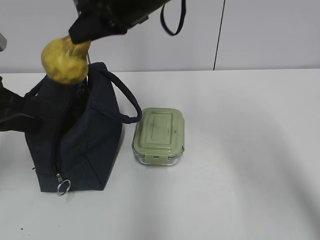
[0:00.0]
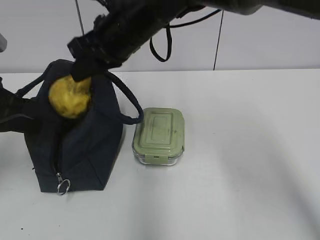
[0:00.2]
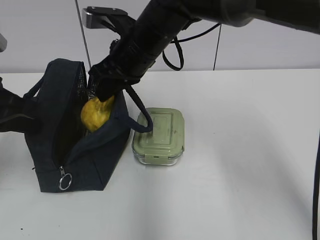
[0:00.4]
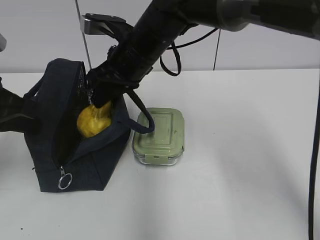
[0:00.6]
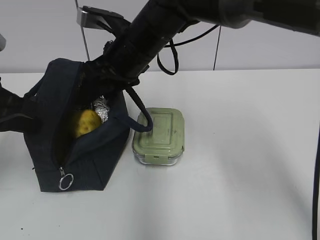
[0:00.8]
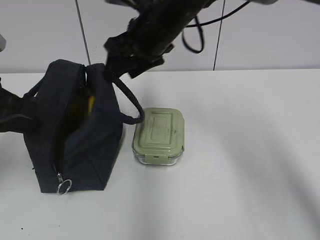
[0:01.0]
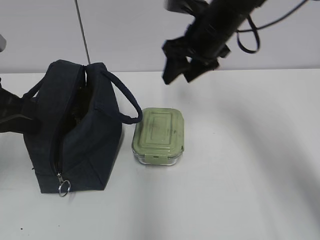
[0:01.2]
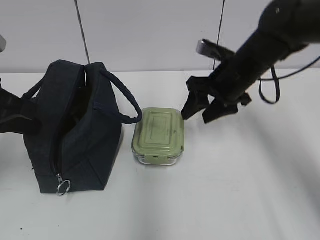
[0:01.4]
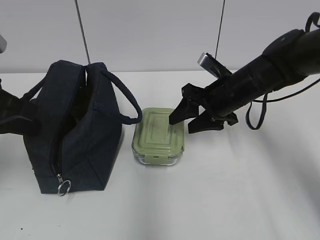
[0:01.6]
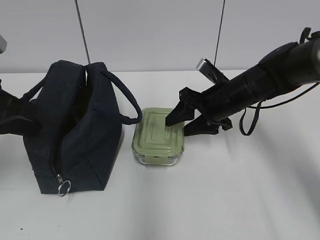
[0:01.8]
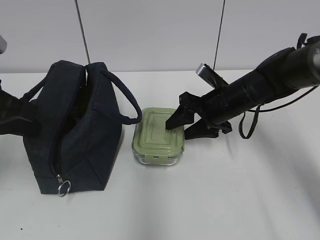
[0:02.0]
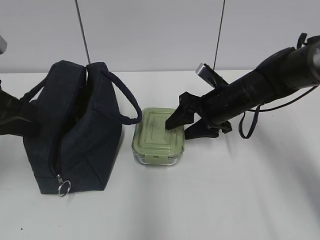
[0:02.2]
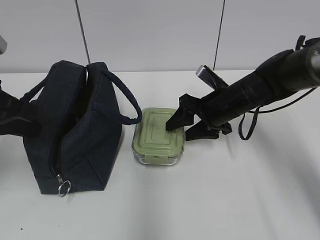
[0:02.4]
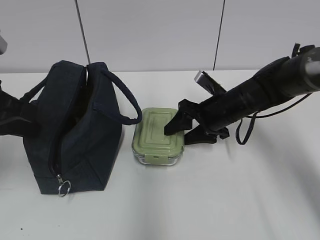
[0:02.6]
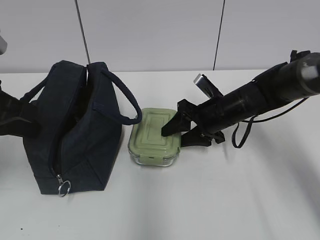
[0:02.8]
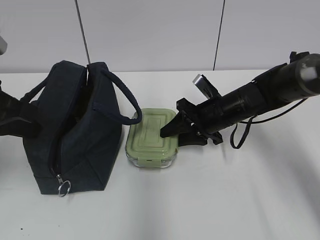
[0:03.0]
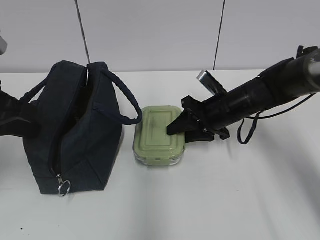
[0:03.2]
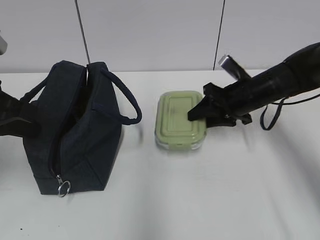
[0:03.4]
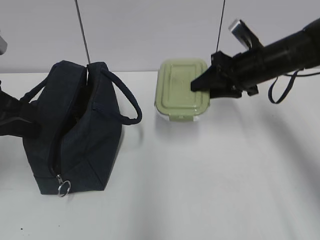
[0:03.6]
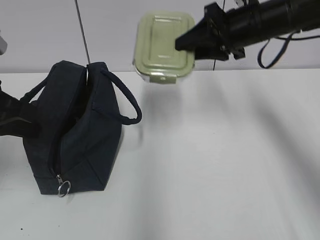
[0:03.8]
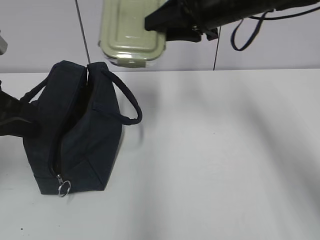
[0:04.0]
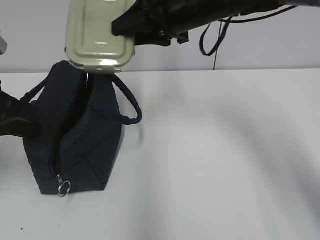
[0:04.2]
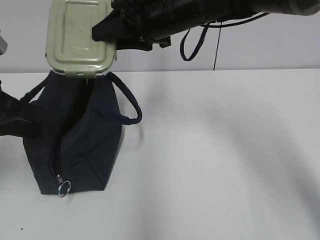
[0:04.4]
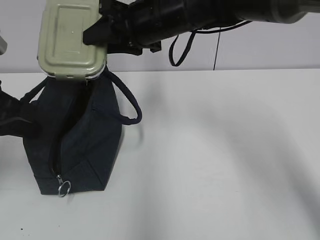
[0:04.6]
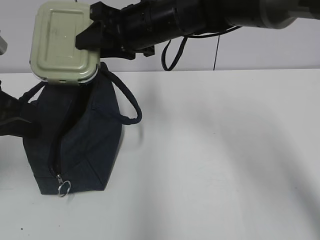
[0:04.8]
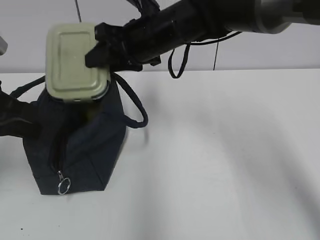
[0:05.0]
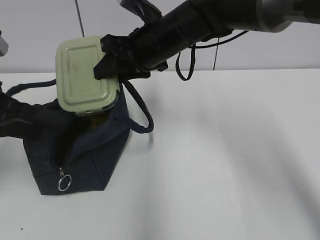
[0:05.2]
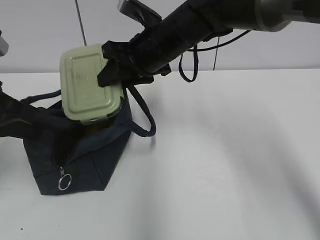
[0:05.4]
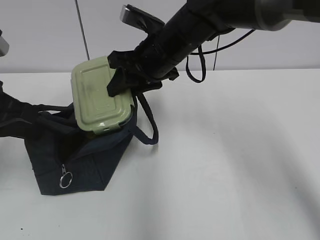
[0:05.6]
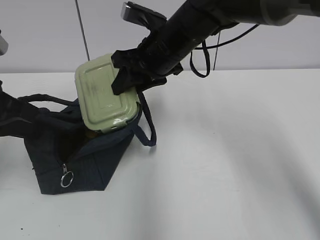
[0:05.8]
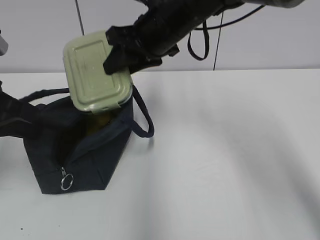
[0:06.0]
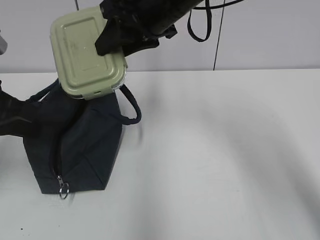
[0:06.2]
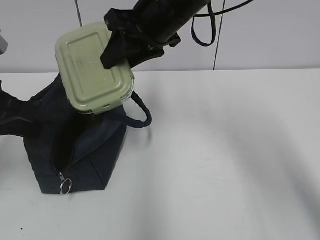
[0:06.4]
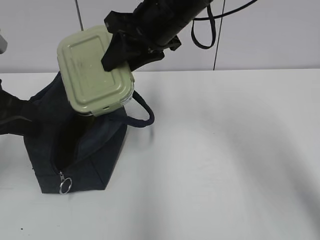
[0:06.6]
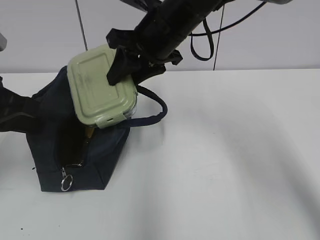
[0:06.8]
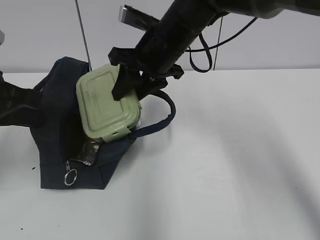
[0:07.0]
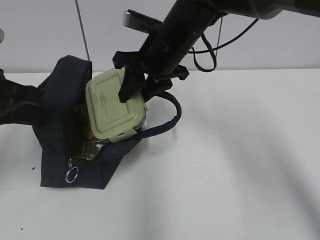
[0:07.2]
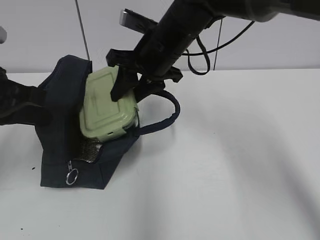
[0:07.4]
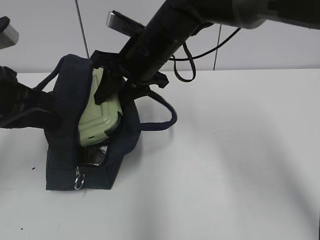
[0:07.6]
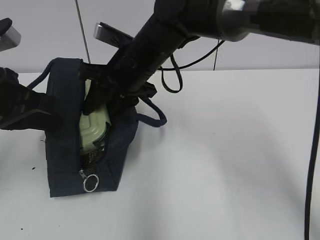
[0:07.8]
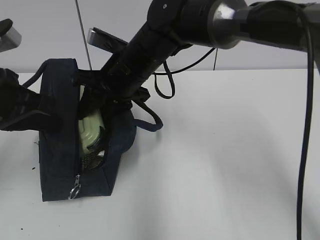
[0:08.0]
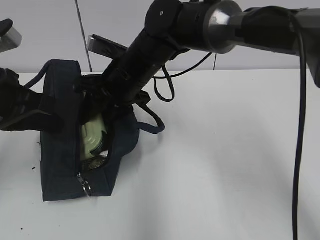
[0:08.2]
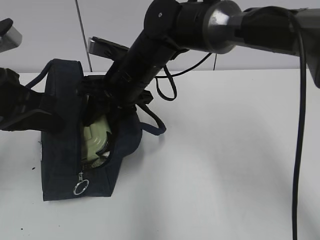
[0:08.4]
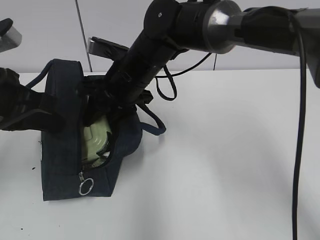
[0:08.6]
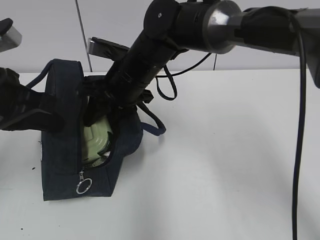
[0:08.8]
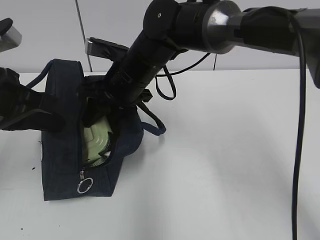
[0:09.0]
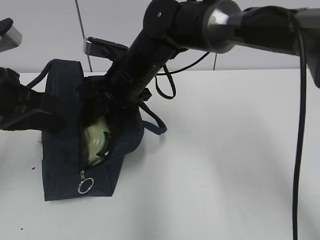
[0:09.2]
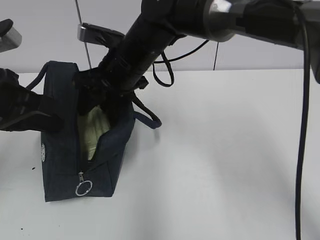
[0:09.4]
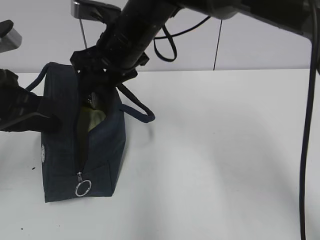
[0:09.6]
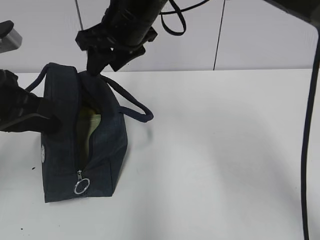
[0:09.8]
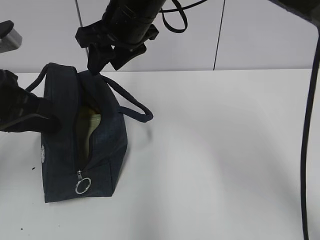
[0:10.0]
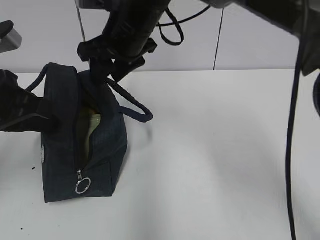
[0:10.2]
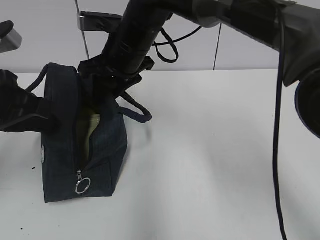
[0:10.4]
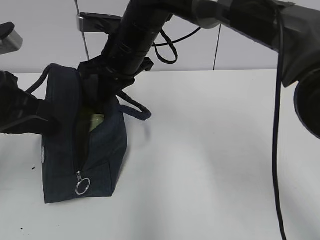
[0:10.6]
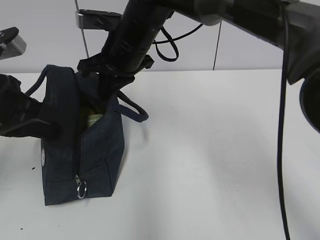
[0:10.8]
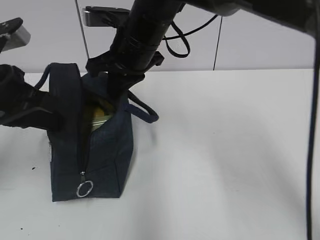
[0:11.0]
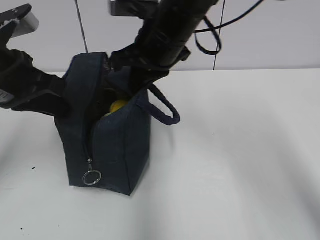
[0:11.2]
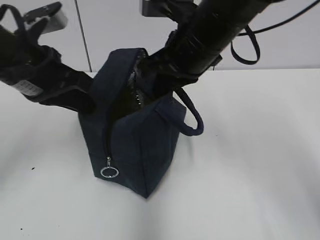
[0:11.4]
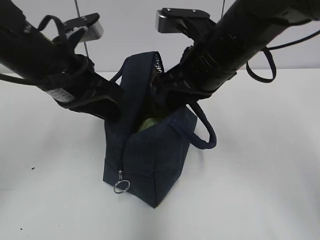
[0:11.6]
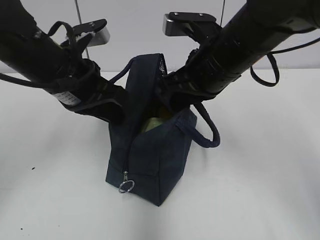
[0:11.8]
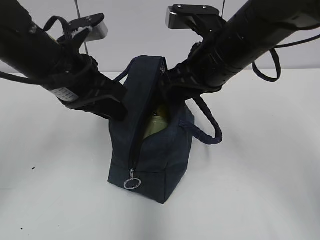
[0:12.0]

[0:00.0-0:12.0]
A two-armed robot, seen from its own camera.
0:00.0 to 0:01.6: The right gripper goes approximately 20 cm downward and to the right, and opens its fingers.
0:01.6 to 0:03.0: The right gripper moves downward, some 5 cm.
0:03.0 to 0:04.4: The right gripper heads upward and to the left, covering approximately 20 cm.
0:06.0 to 0:07.6: The right gripper shifts roughly 5 cm downward.
0:10.4 to 0:12.0: The left gripper heads to the right and forward, covering some 10 cm, and opens; the right gripper goes some 15 cm to the right and backward, and closes and opens again.

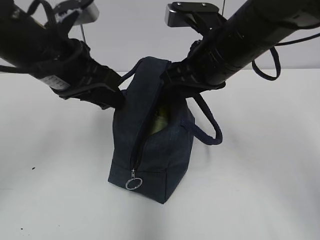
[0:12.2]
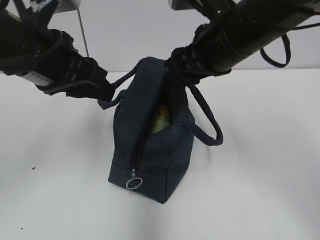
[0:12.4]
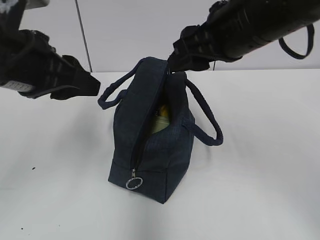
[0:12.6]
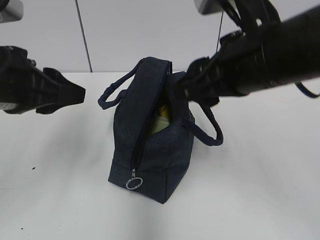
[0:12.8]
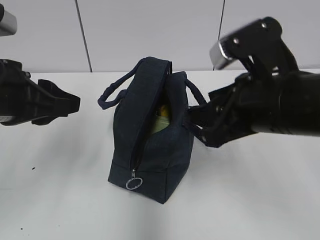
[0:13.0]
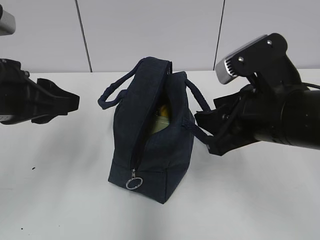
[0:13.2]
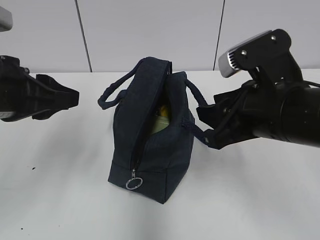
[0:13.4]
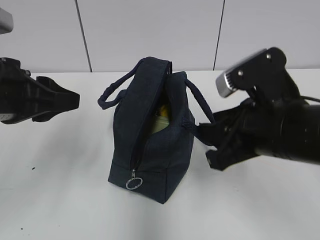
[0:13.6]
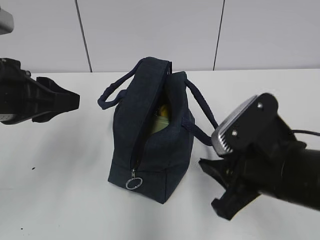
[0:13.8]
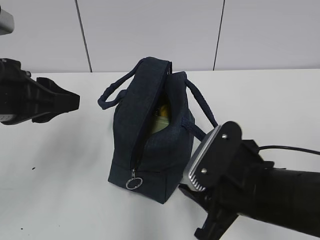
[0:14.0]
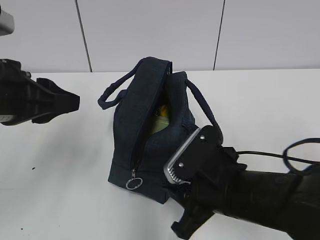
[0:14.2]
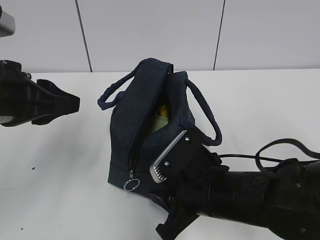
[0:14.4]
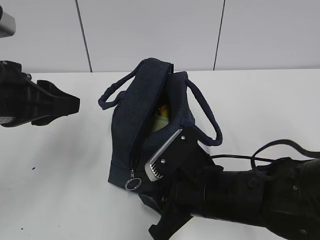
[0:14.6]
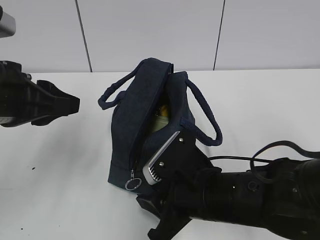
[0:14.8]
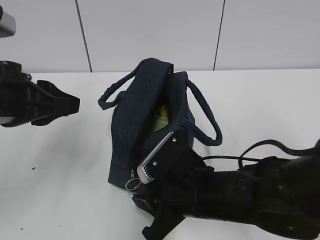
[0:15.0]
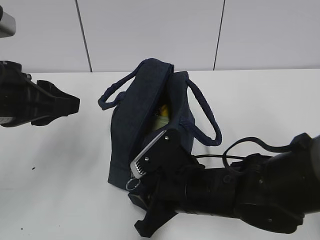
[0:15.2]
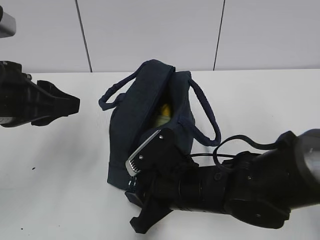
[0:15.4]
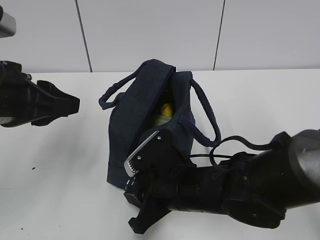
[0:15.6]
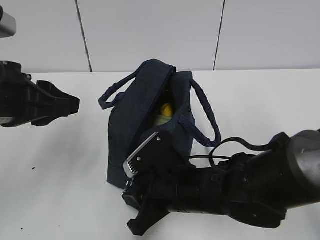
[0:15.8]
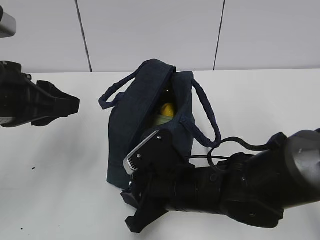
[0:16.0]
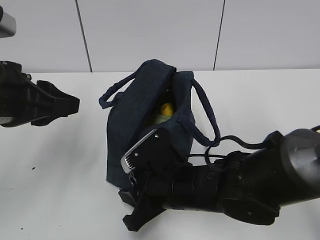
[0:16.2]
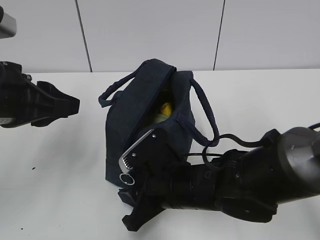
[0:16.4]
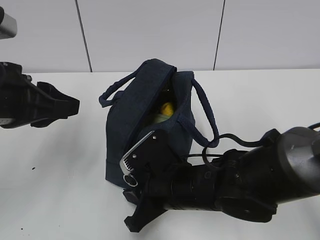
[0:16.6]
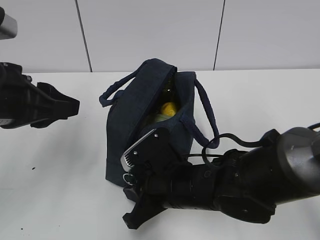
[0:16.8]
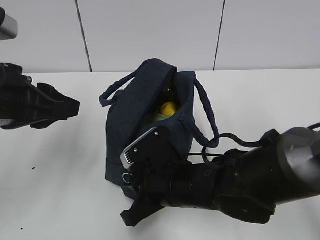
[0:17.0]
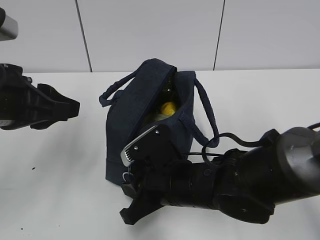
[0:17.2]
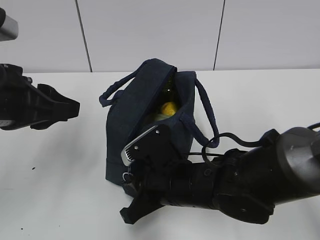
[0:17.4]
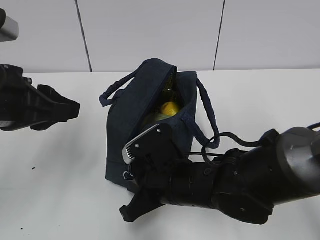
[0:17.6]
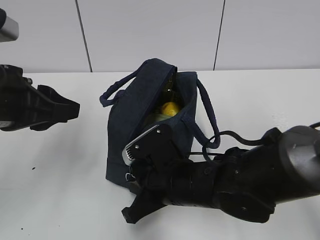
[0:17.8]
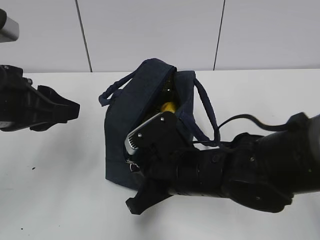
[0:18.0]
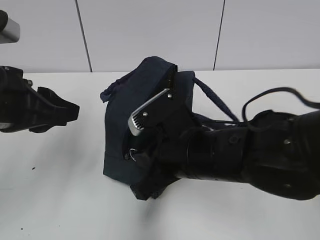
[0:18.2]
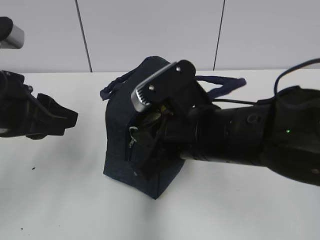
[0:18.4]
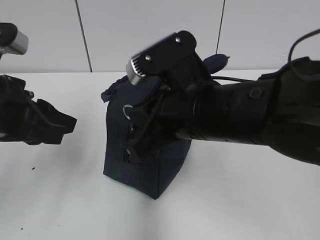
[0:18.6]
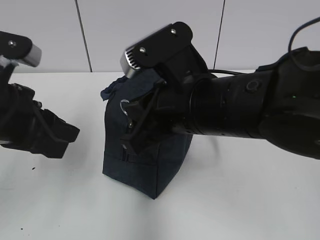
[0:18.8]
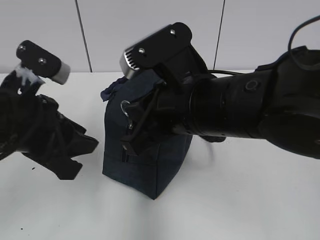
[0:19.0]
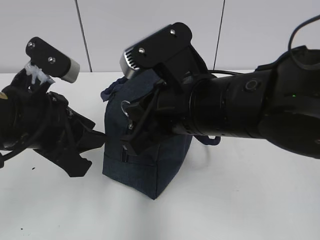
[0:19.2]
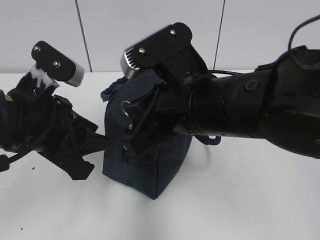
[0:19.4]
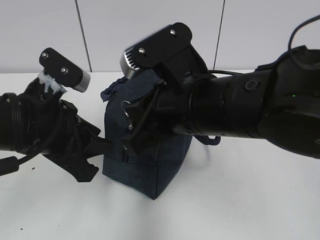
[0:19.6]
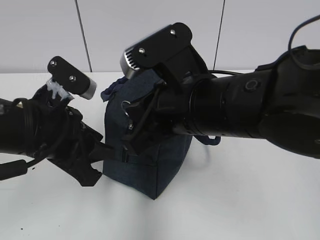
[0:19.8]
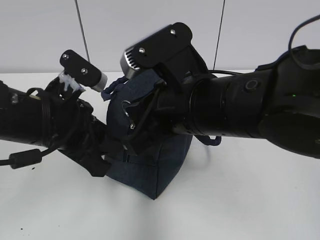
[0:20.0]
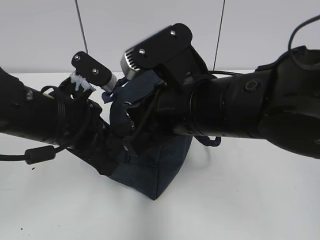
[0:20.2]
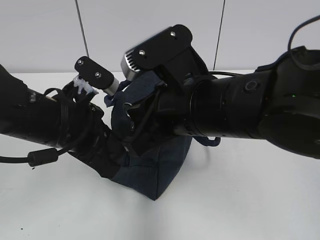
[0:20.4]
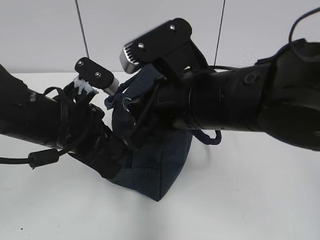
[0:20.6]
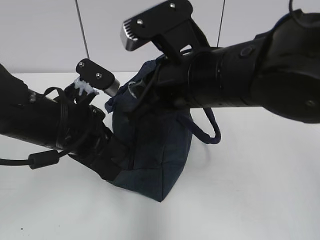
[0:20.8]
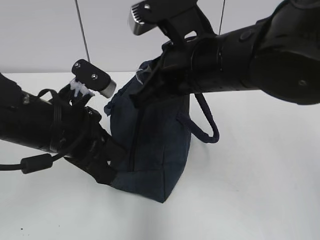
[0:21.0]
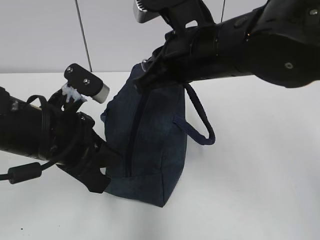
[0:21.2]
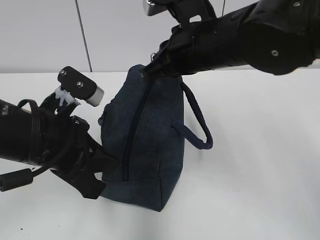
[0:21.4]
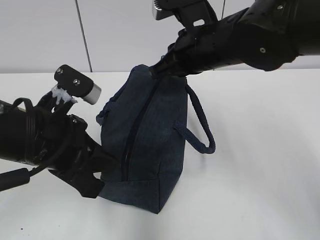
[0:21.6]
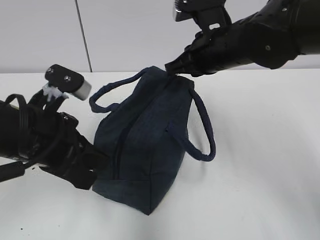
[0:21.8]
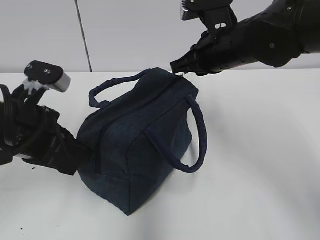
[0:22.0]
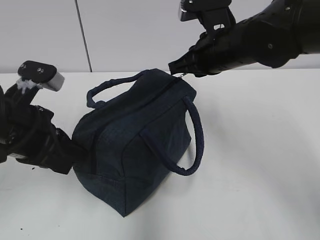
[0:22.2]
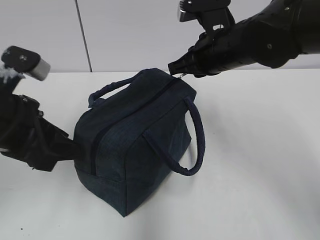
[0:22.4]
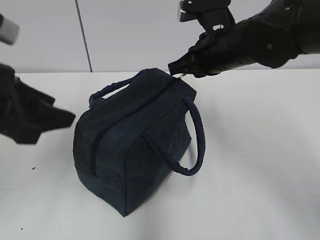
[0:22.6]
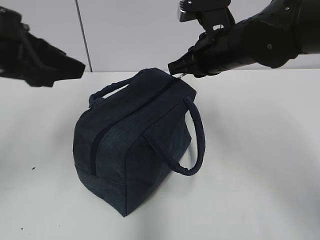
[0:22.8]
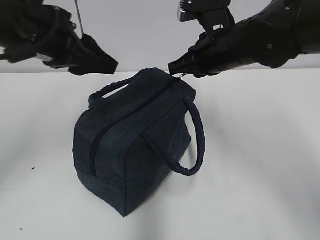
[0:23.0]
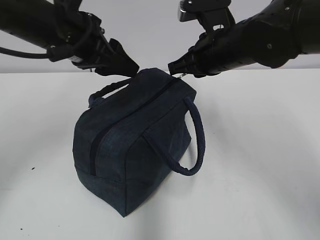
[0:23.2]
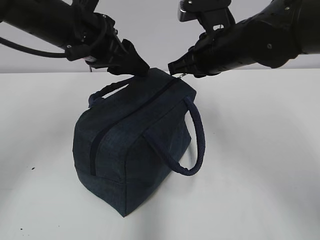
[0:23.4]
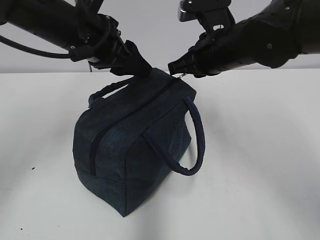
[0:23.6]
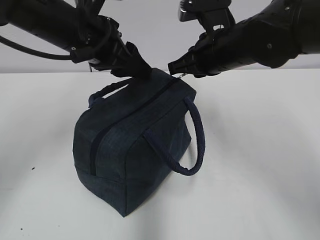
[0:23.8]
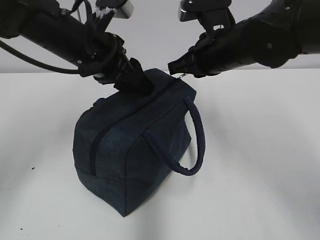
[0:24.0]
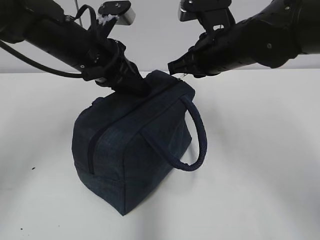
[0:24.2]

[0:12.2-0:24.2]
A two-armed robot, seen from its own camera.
0:12.2 to 0:13.8: The left gripper goes approximately 10 cm backward and to the left. Meanwhile the right gripper travels backward and downward by roughly 15 cm.
0:13.8 to 0:15.2: The right gripper shifts approximately 10 cm to the left and downward.
0:15.2 to 0:16.6: There are only small adjustments of the grippers.
0:16.6 to 0:18.2: The right gripper heads upward, covering roughly 10 cm.
0:18.2 to 0:19.8: The left gripper travels downward by approximately 5 cm, while the right gripper is displaced upward by roughly 5 cm.
0:19.8 to 0:21.2: The left gripper closes up; the right gripper travels forward by approximately 5 cm.
0:21.2 to 0:22.6: The left gripper is displaced upward and to the left by about 10 cm, and opens. Meanwhile the right gripper moves forward and to the right, some 10 cm.
0:22.6 to 0:24.2: The left gripper shifts approximately 15 cm forward and to the right, and closes.
